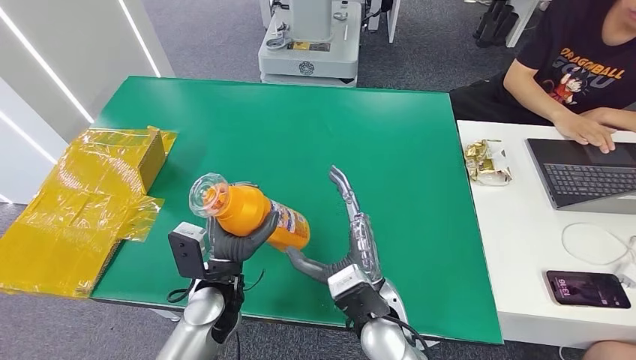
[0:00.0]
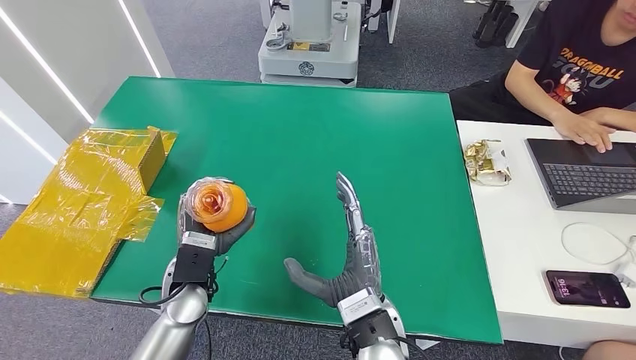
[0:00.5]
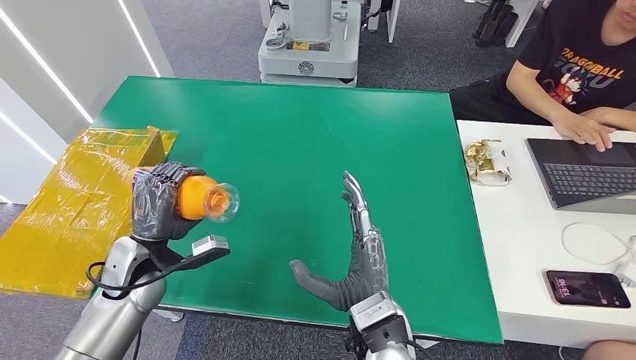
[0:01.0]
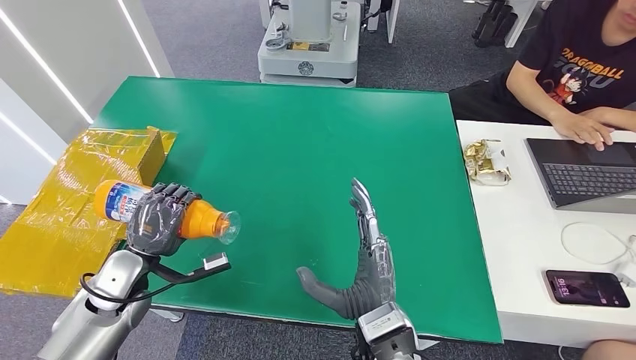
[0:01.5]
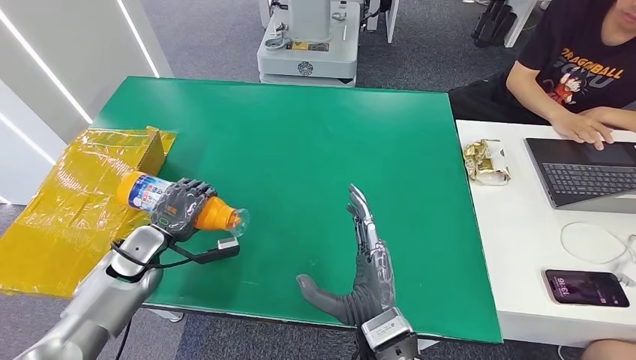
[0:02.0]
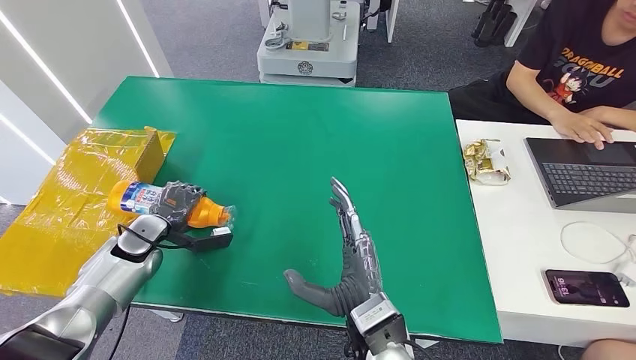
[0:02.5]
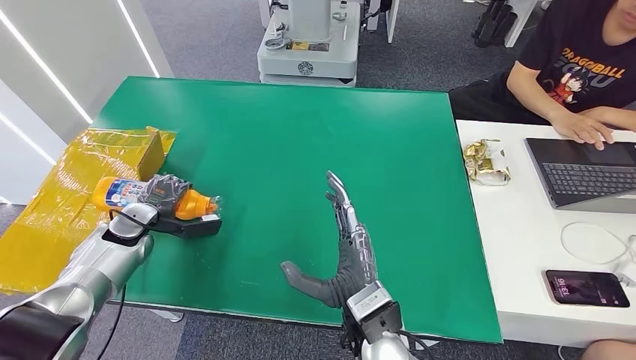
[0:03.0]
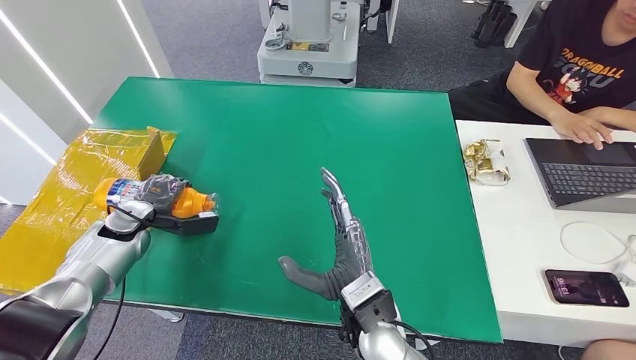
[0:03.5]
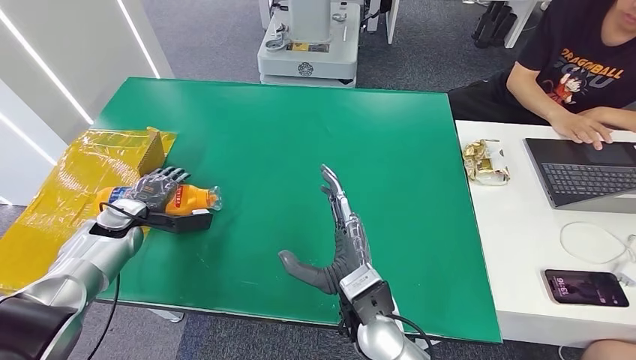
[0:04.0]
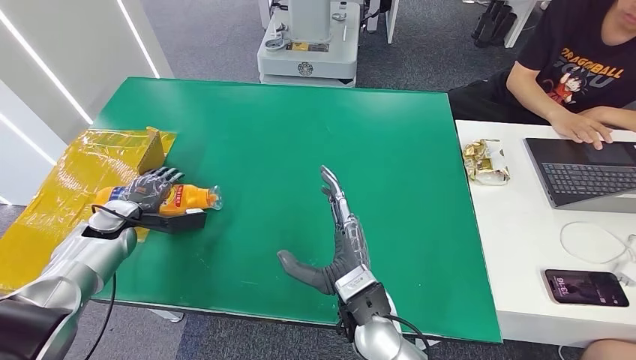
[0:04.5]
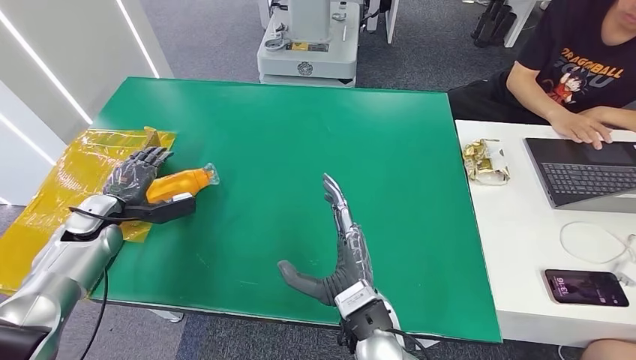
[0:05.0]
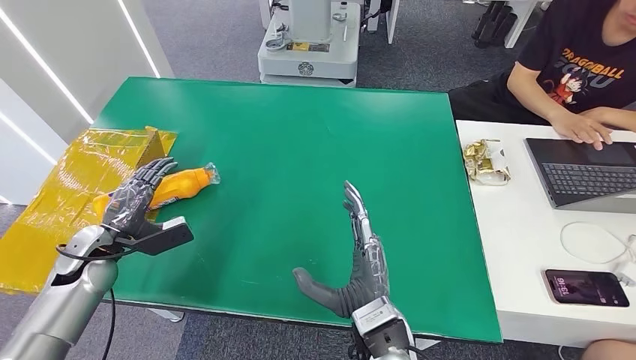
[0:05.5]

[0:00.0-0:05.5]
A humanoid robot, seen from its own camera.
Step, 0:00.0 to 0:05.5: Turn the bottle to the front side.
0:00.0 to 0:02.0: The left hand moves to the left, roughly 20 cm.
0:02.0 to 0:03.5: The left hand goes approximately 10 cm to the left and forward.
0:03.5 to 0:05.5: The left hand heads backward, covering some 10 cm.
